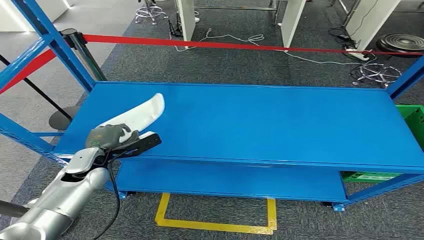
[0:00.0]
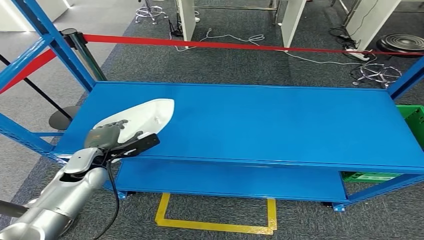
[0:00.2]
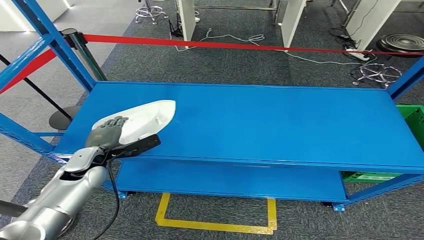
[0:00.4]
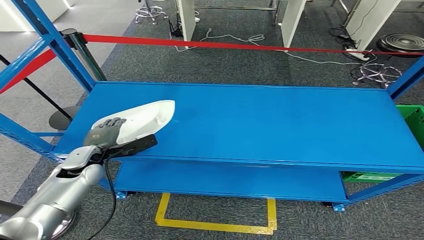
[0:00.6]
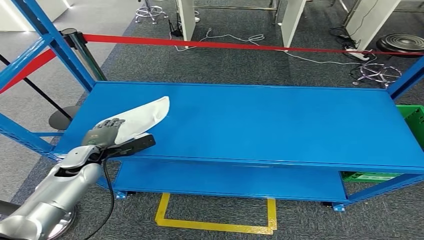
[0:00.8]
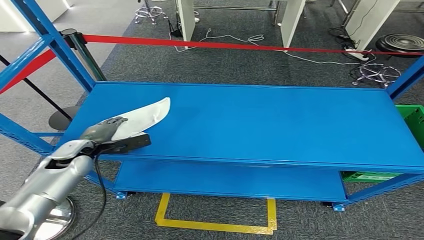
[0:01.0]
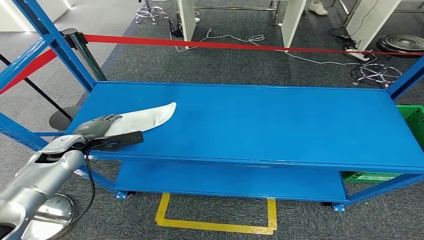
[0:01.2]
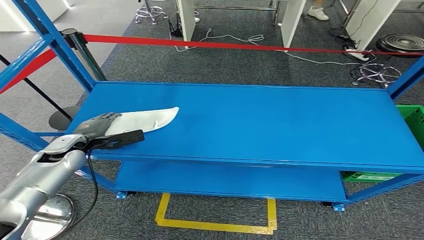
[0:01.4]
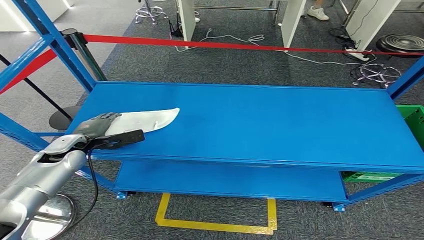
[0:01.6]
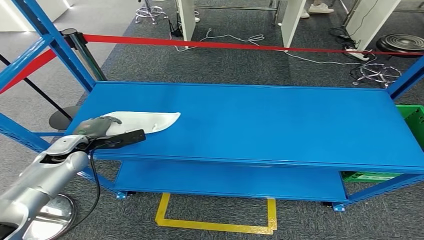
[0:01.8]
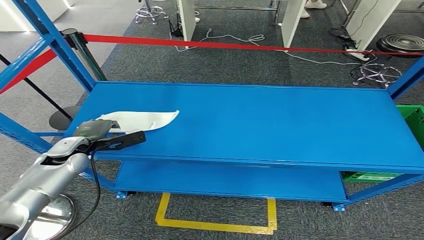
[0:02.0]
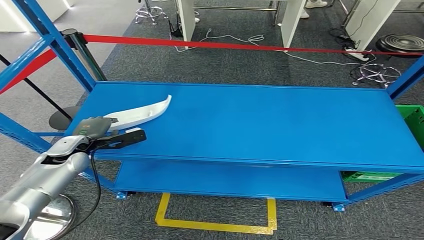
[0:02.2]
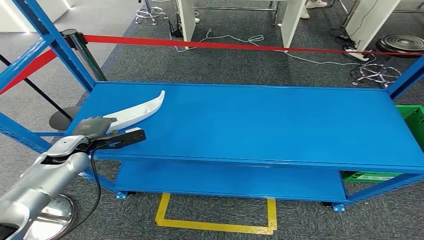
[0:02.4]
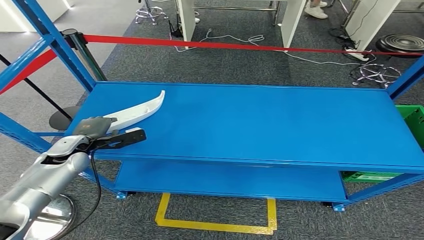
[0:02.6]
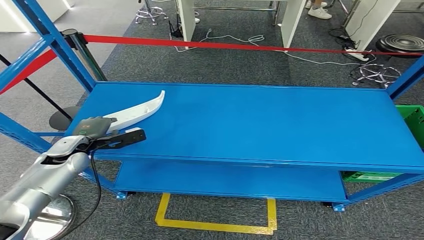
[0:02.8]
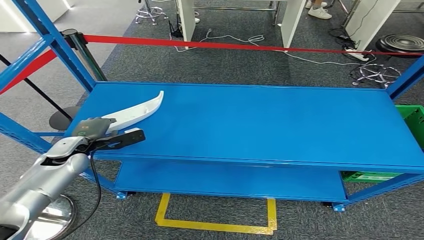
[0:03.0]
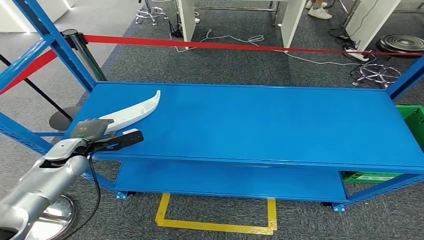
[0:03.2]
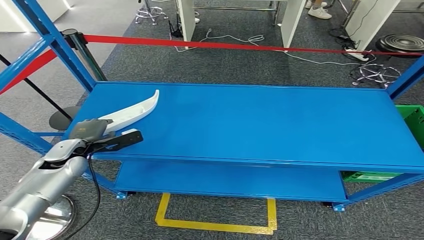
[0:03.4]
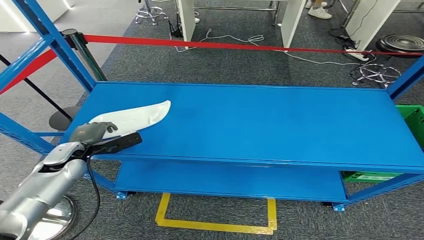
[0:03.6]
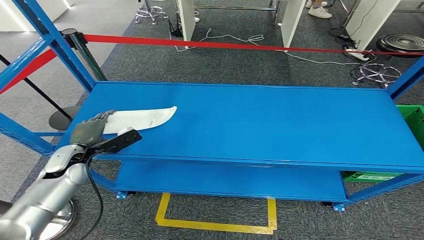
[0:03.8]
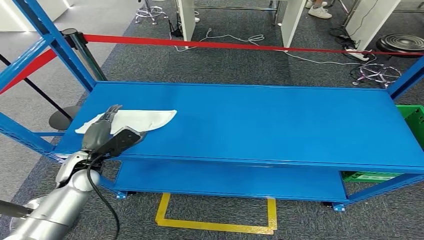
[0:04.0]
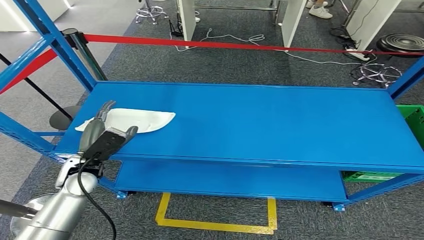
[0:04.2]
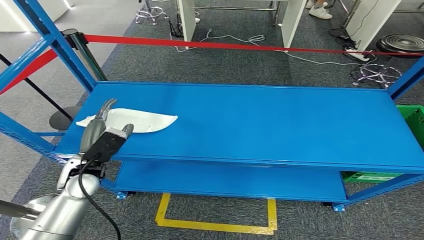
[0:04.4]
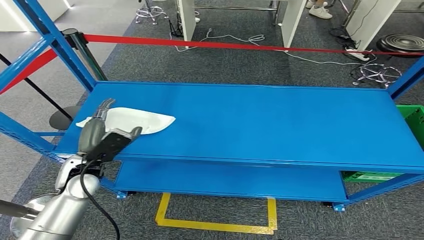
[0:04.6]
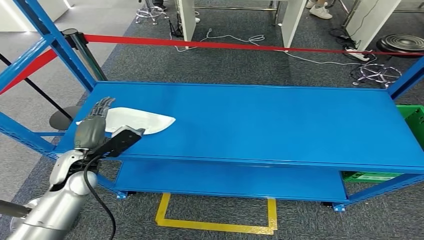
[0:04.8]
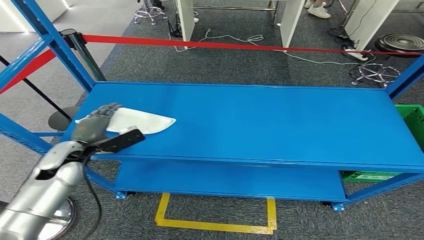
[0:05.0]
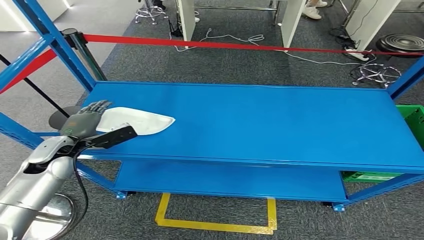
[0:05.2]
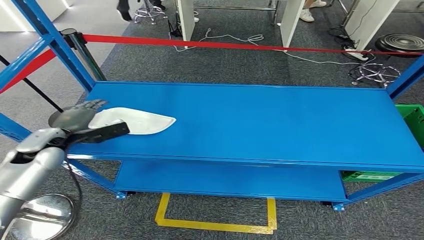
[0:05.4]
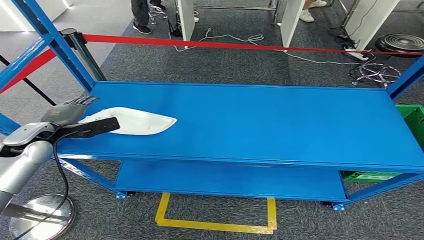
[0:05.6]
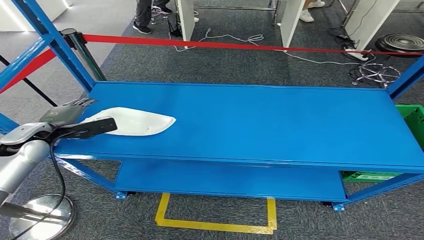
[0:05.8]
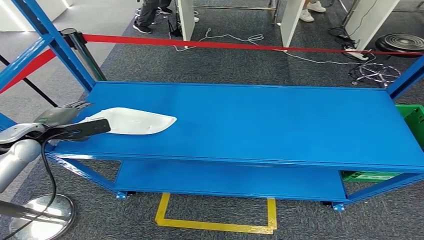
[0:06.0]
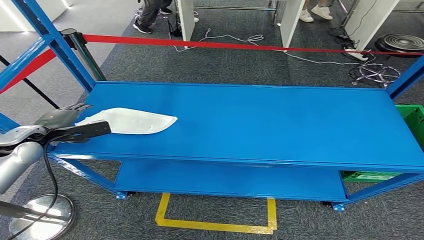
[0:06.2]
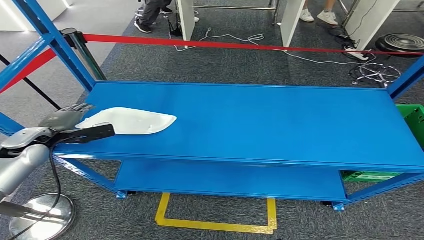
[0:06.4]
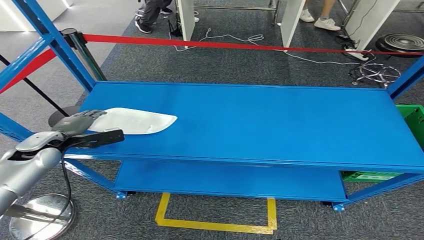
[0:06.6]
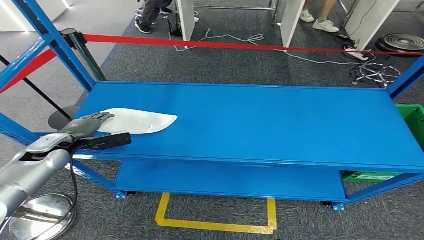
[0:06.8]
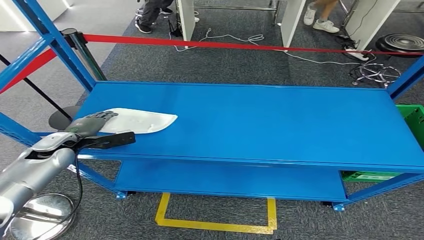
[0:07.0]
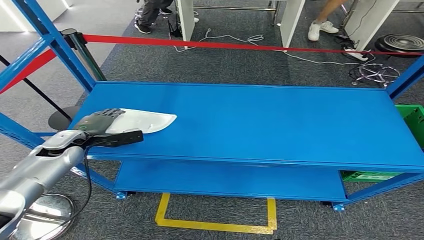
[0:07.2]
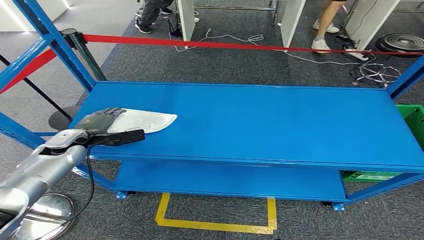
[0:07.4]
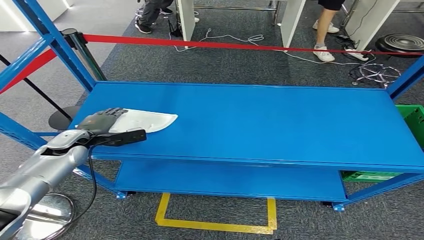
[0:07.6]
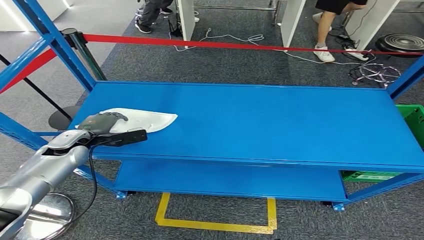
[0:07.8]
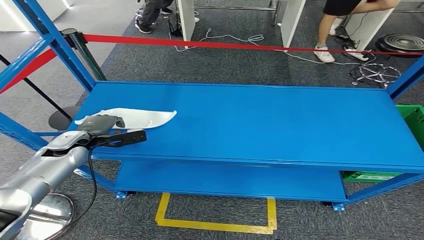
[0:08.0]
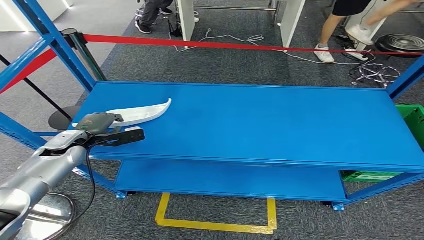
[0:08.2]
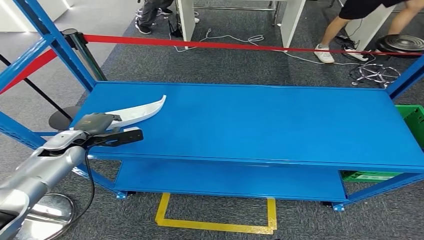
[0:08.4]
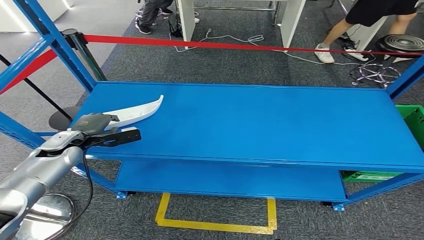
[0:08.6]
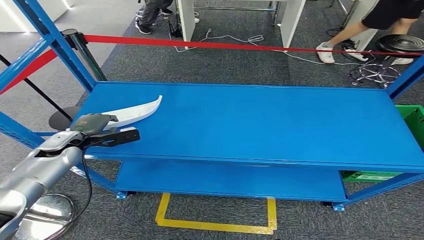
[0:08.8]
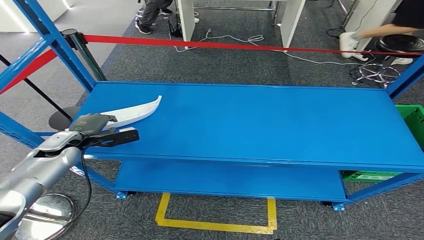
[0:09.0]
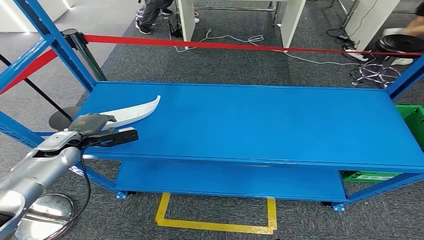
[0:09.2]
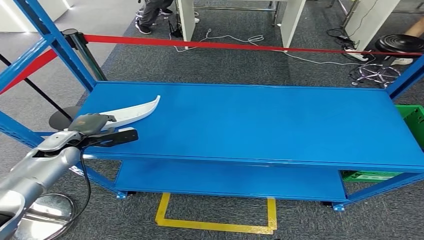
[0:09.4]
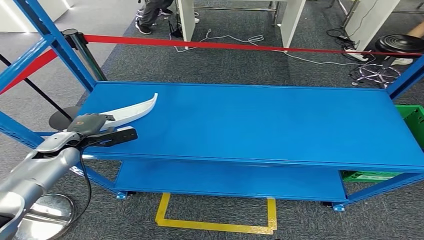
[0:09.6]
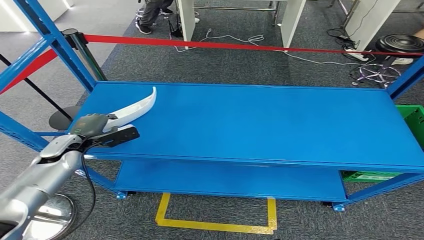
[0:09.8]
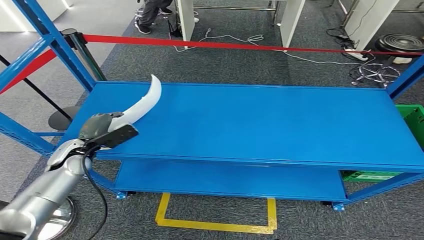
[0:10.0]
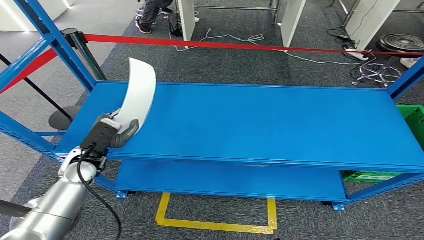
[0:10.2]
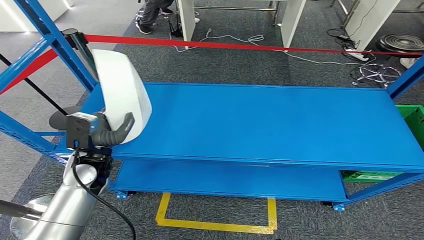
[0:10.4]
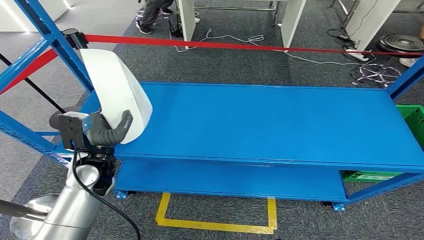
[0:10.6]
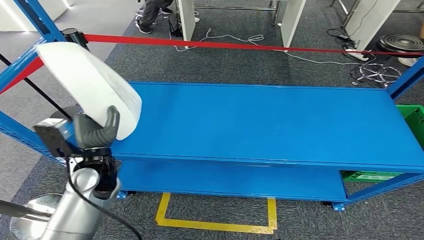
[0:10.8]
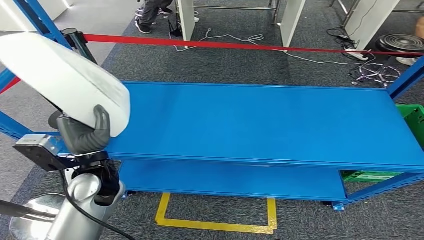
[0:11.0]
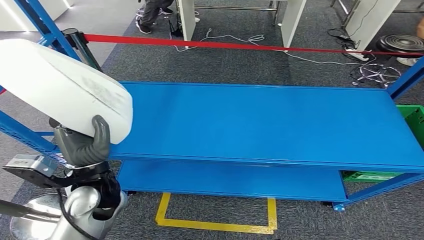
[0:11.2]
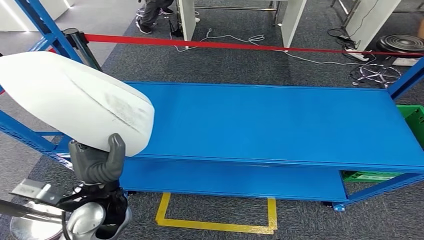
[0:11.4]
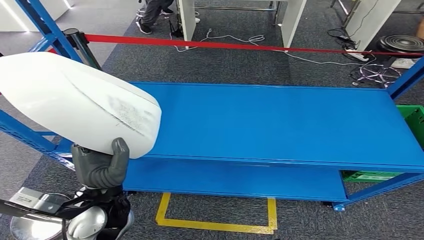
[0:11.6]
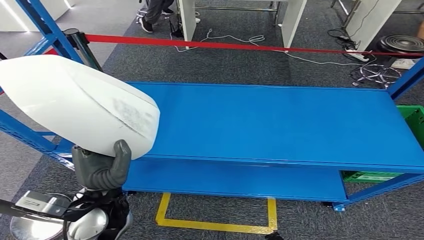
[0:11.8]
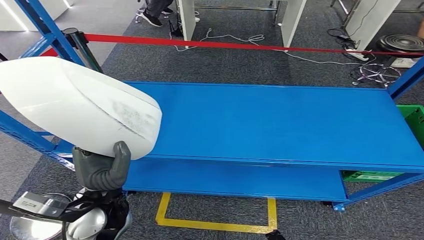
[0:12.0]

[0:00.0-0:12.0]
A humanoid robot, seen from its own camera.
1.6 to 3.0 s: The two hands keep their place.
3.0 to 4.4 s: The left hand is displaced backward and to the right by some 10 cm.
4.4 to 6.0 s: The left hand heads to the left and forward, covering some 15 cm.
6.0 to 7.6 s: The left hand travels to the right and downward by roughly 10 cm.
7.6 to 9.0 s: The hands move only a little.
9.0 to 10.4 s: The left hand heads to the right and backward, covering approximately 15 cm.
10.4 to 12.0 s: The left hand is displaced backward and to the right by approximately 15 cm.

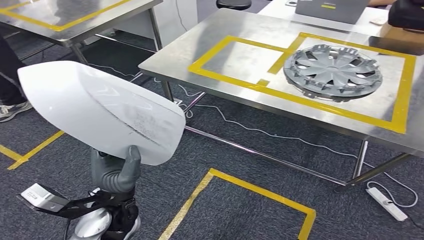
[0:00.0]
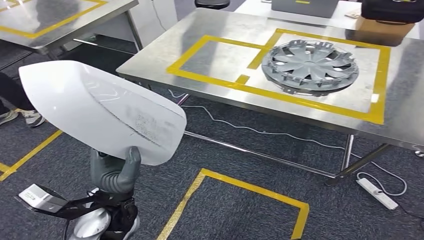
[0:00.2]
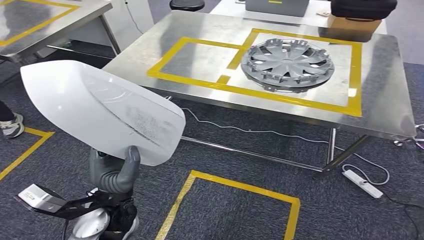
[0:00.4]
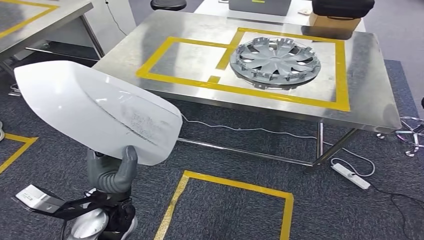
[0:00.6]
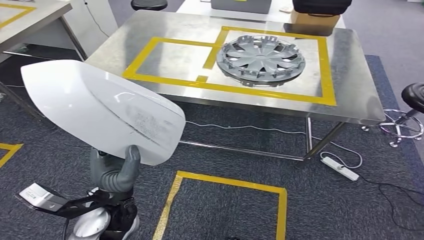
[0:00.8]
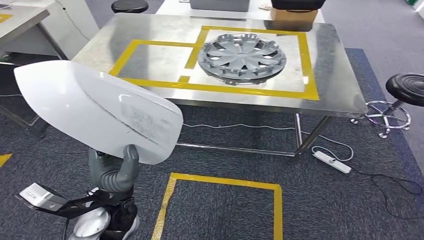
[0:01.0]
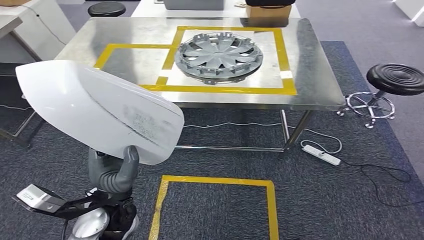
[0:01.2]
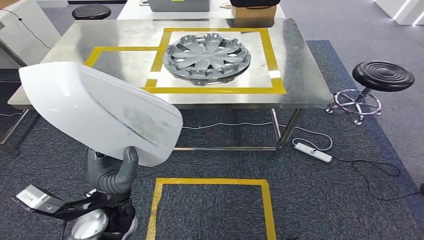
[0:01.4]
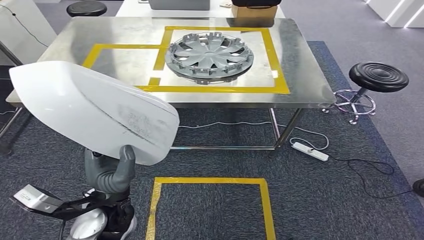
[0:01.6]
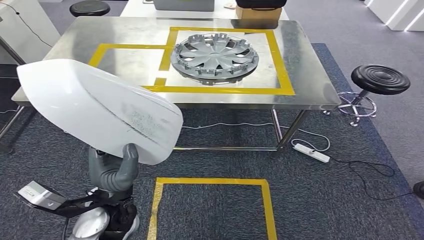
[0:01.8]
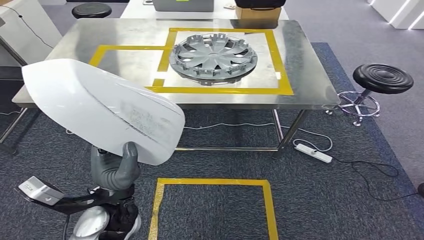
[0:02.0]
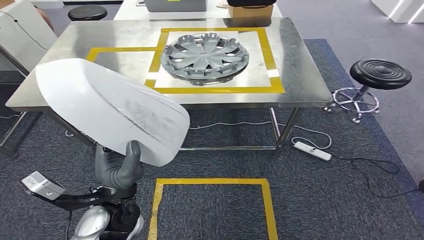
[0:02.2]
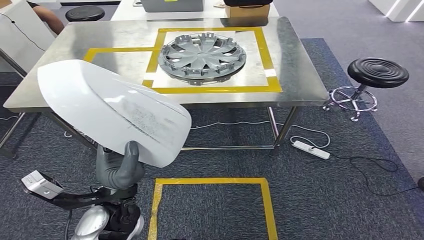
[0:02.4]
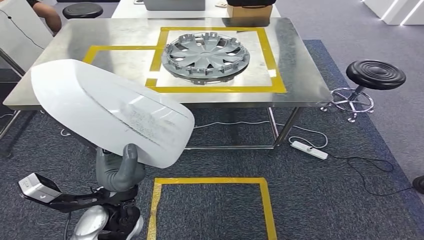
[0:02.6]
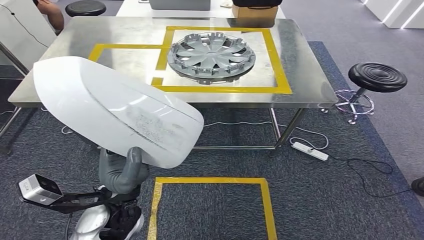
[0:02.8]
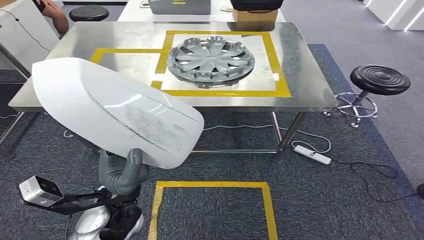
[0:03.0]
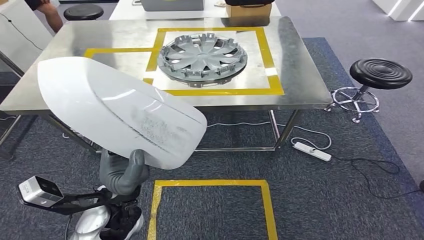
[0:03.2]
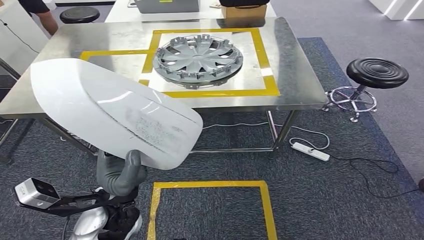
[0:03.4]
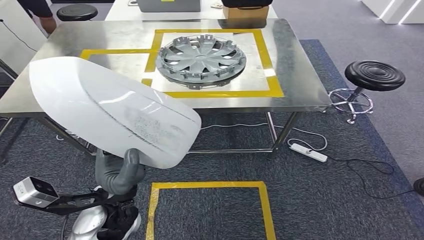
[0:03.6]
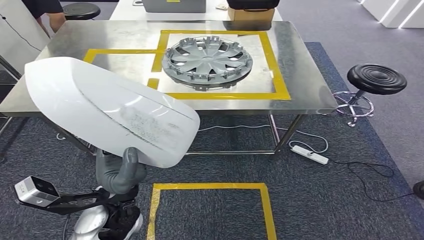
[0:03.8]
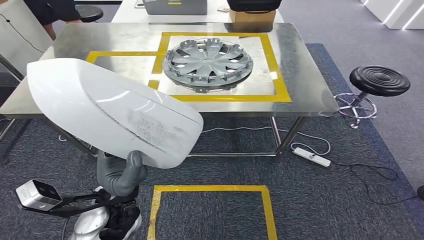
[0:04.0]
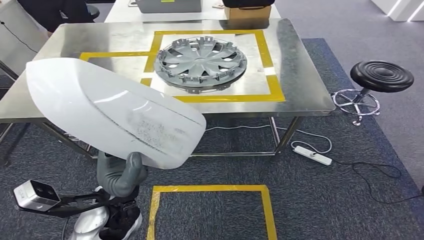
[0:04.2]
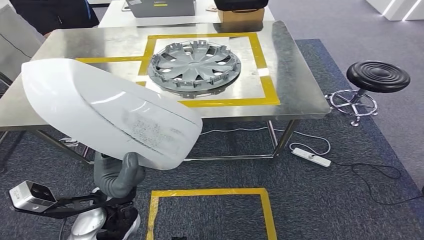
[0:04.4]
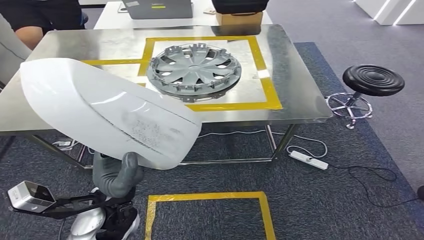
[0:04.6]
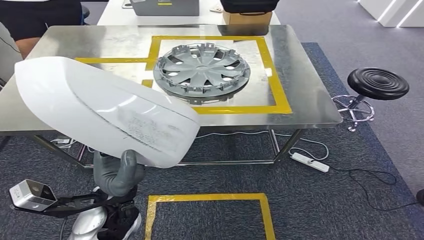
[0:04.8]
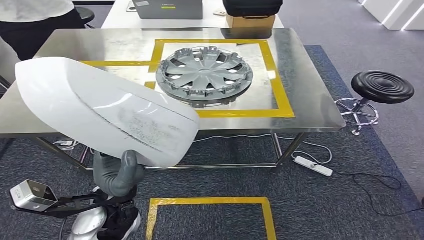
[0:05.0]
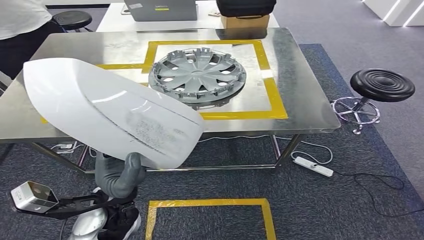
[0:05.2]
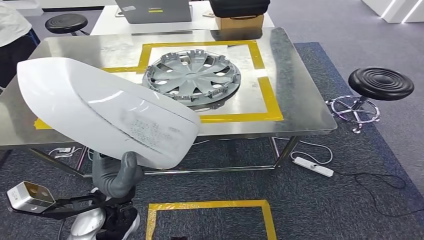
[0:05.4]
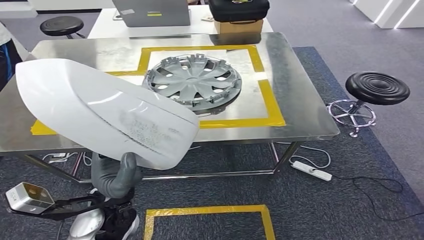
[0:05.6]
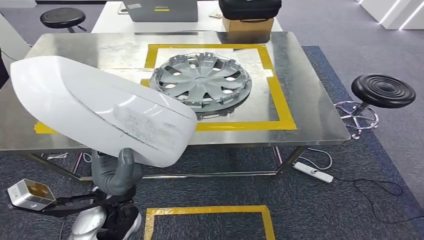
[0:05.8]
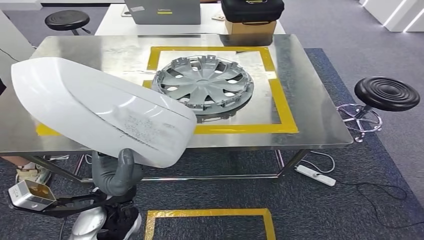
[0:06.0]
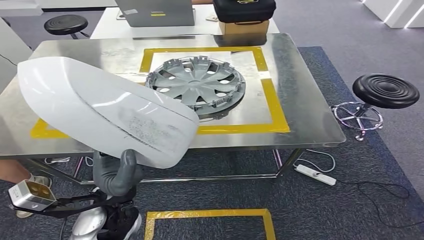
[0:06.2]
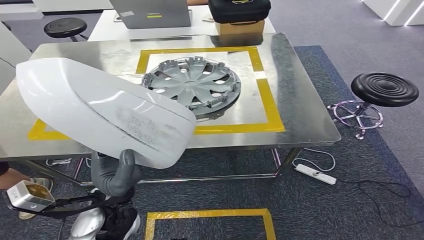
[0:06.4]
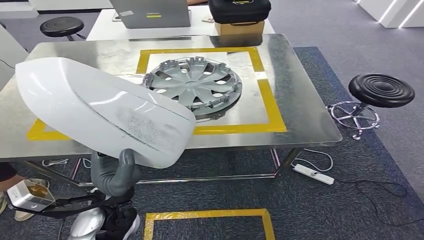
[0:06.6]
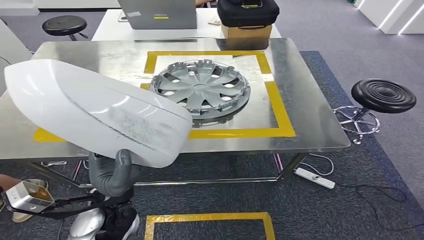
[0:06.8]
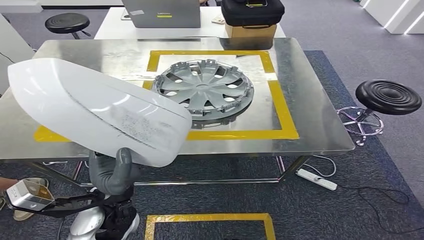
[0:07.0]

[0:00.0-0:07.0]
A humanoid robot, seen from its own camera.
Step, 0.0 to 6.2 s: Move the small component to the workbench.
